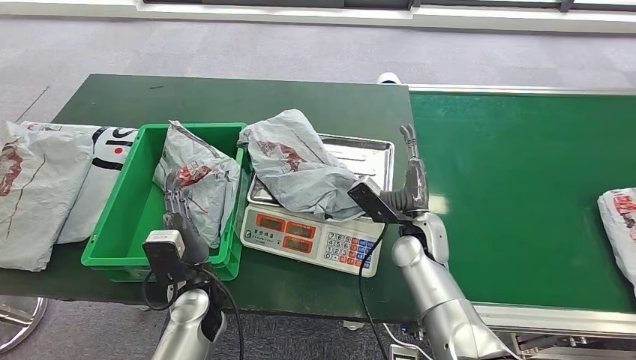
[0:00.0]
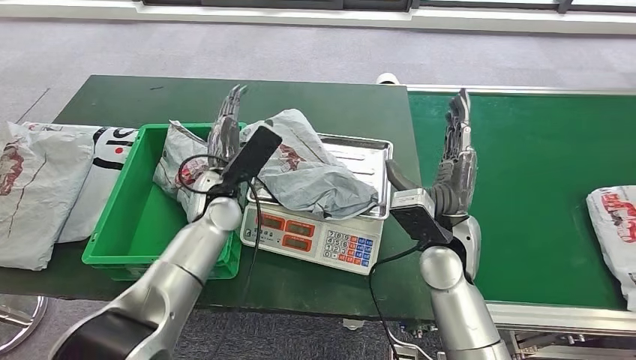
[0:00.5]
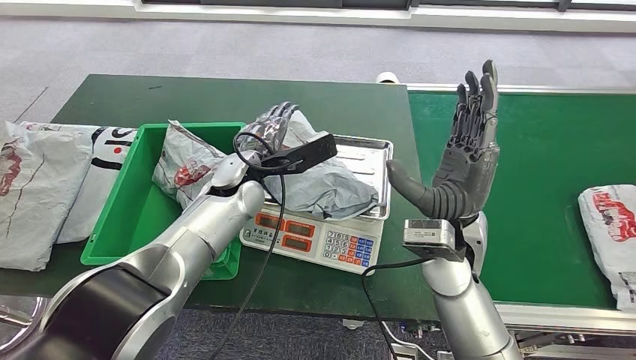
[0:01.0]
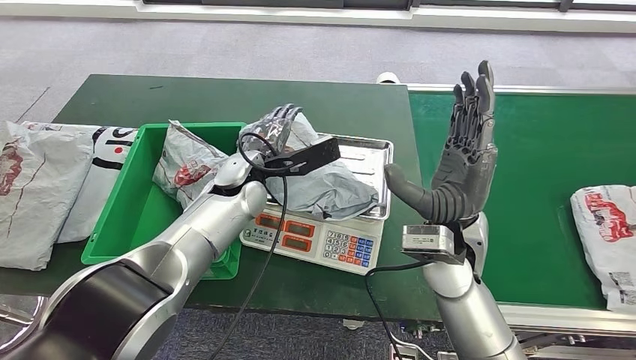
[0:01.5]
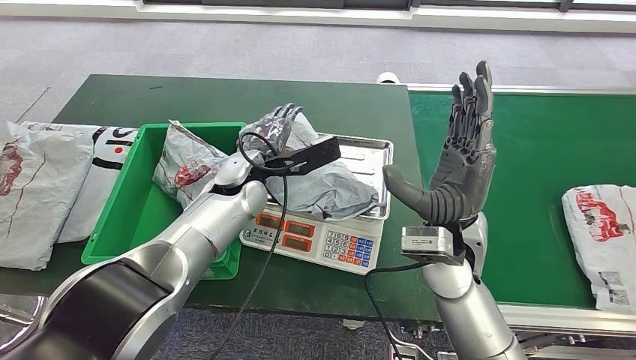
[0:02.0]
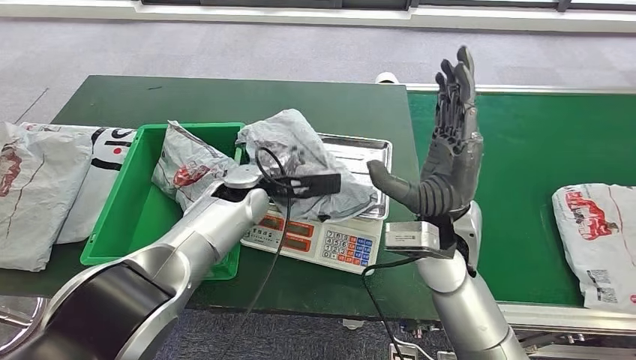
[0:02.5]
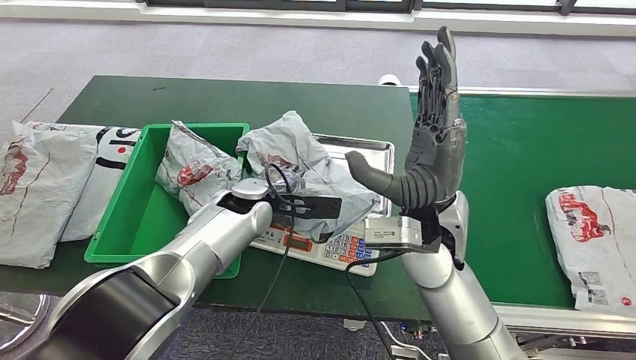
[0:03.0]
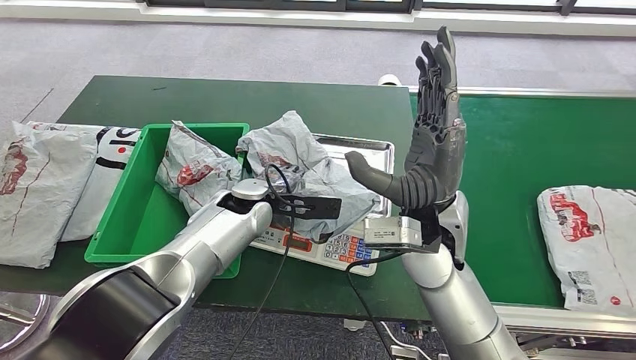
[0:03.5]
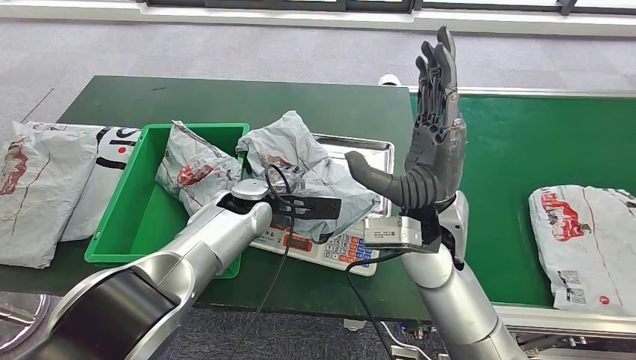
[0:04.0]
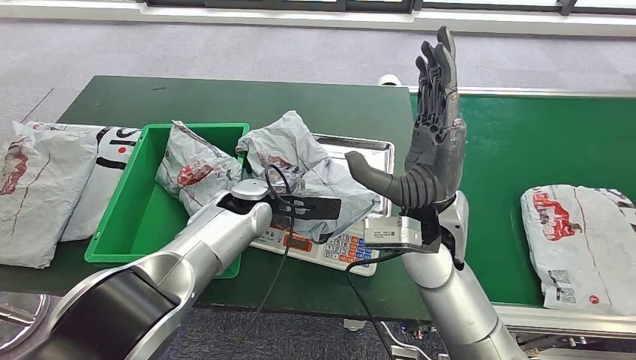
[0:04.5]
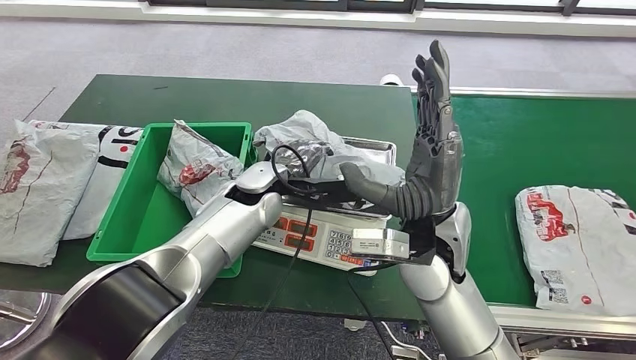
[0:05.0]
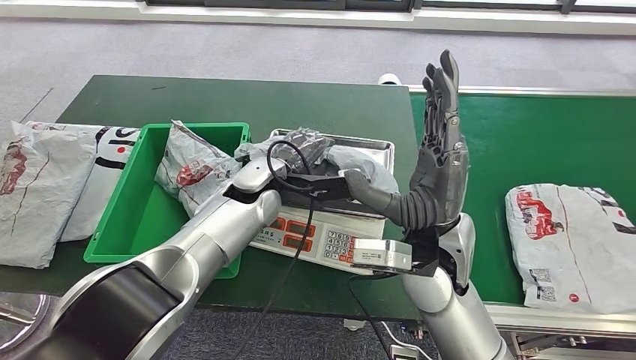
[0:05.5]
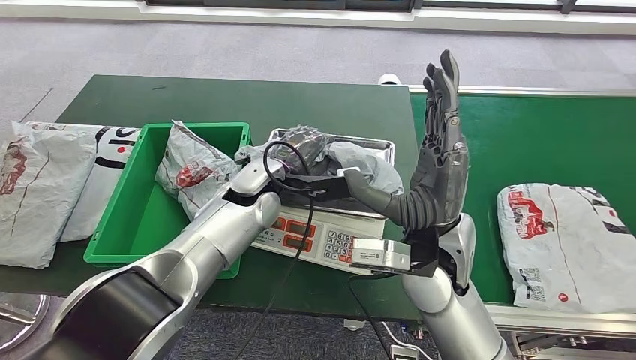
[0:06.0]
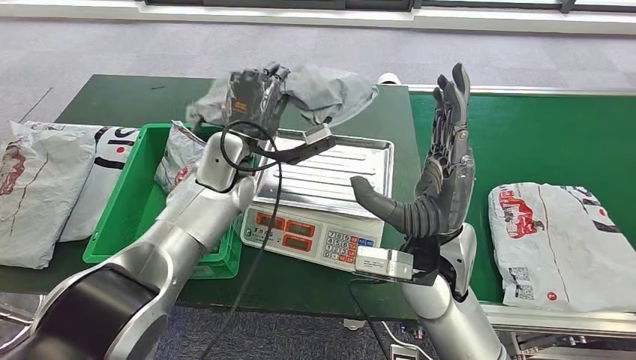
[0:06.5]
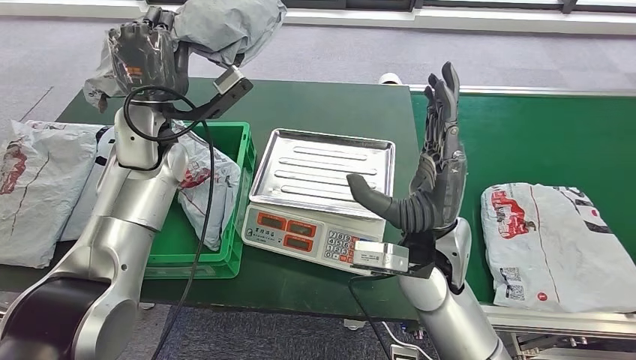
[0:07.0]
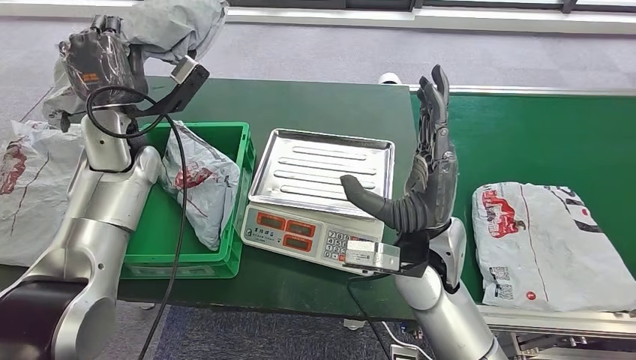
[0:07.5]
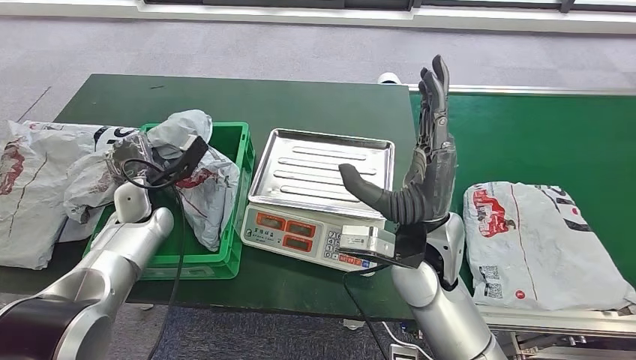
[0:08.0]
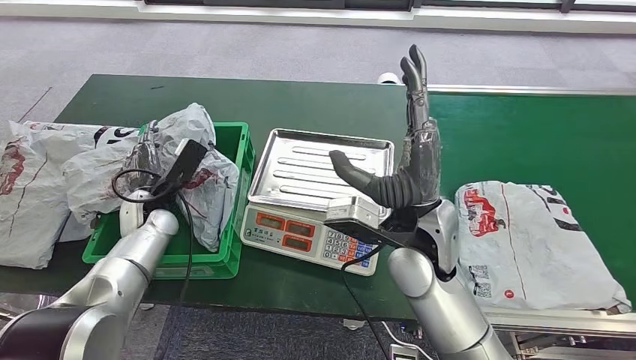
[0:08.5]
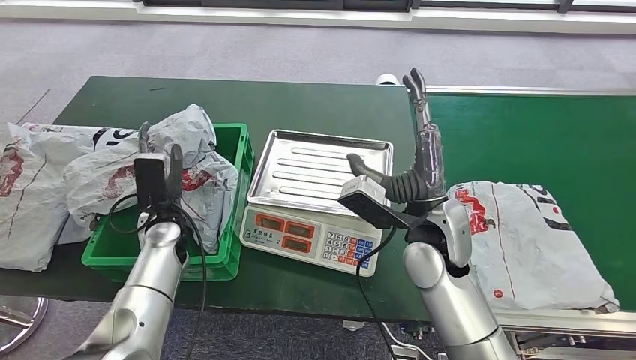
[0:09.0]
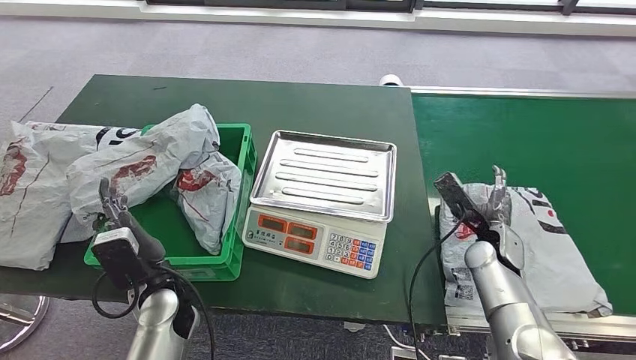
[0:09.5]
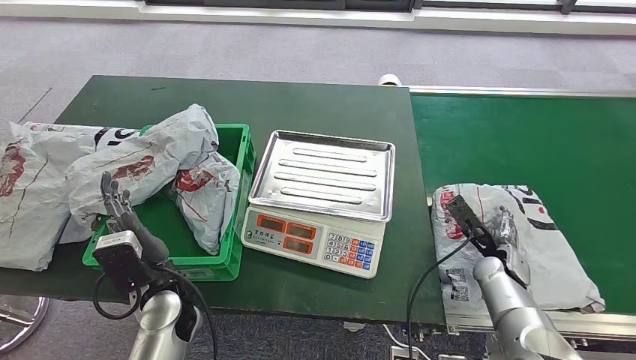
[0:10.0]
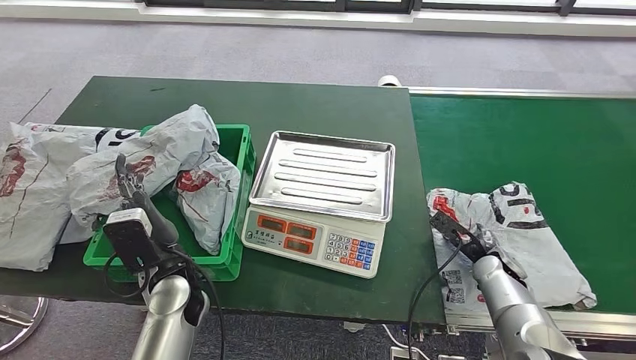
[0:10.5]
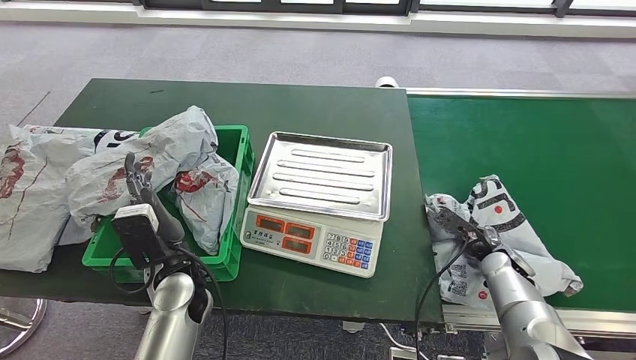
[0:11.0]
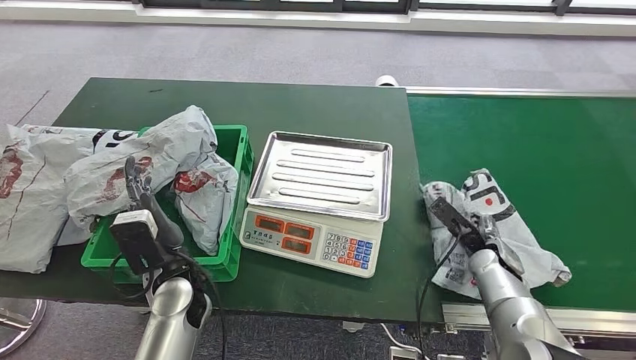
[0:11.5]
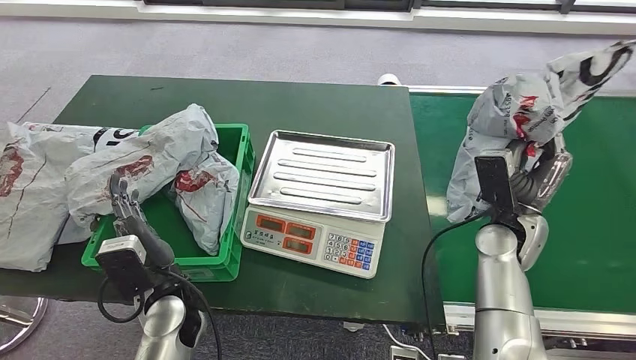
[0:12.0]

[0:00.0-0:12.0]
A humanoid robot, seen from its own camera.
Step, 0:00.5 to 0:06.0: Pick up the parcel from the inbound machine.
Step, 0:06.5 to 0:10.0: Place the parcel into the delivery box.
0:10.0 to 0:12.0: The right hand goes about 10 cm upward.

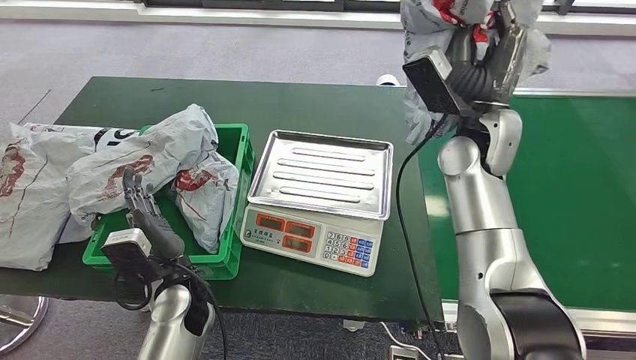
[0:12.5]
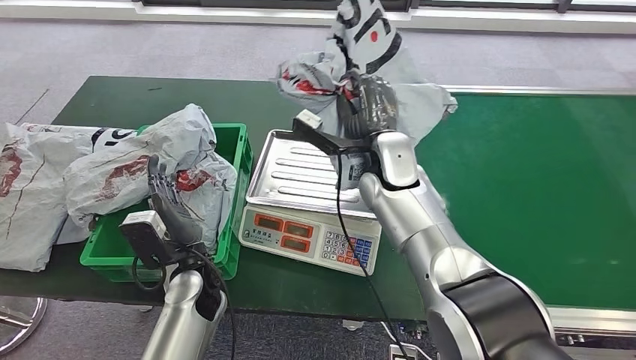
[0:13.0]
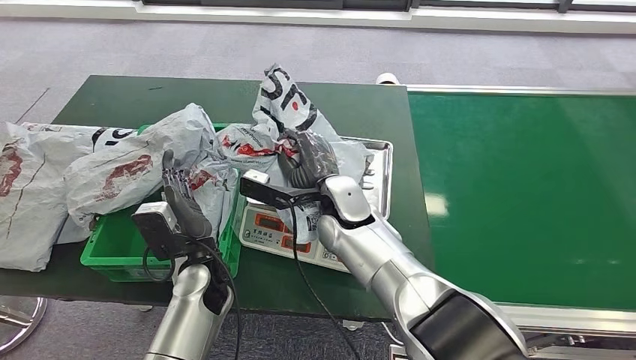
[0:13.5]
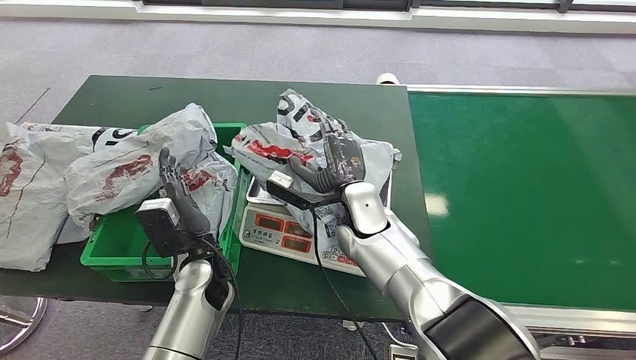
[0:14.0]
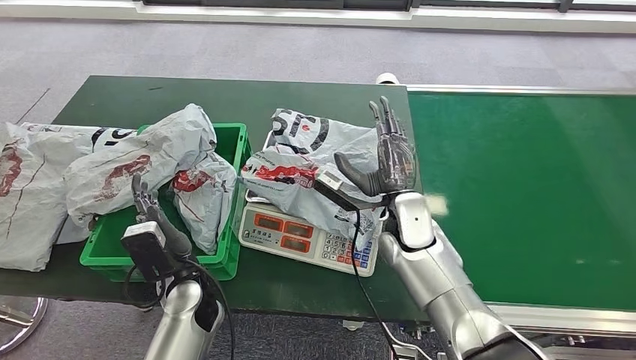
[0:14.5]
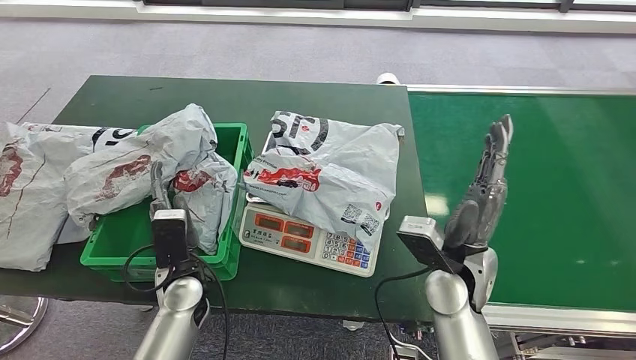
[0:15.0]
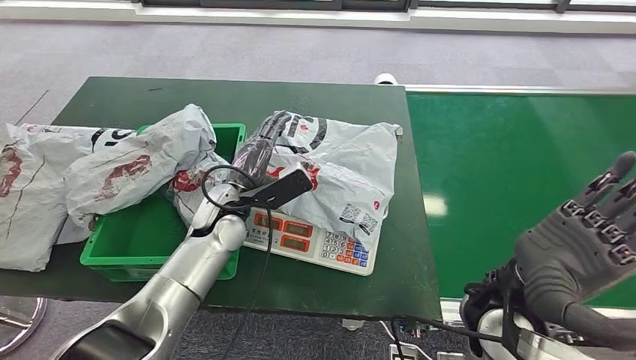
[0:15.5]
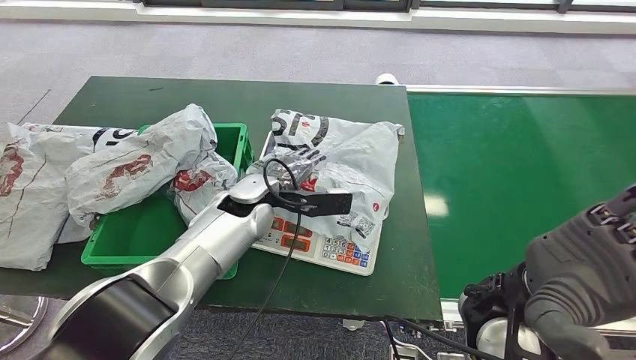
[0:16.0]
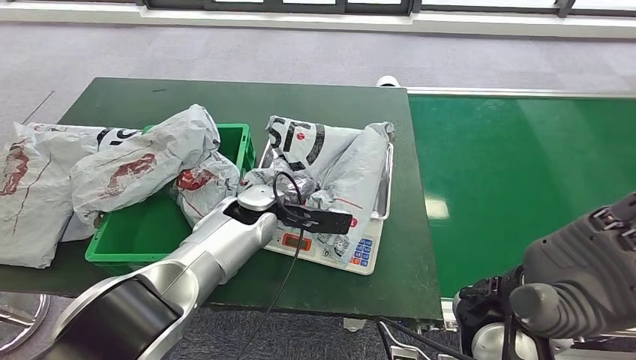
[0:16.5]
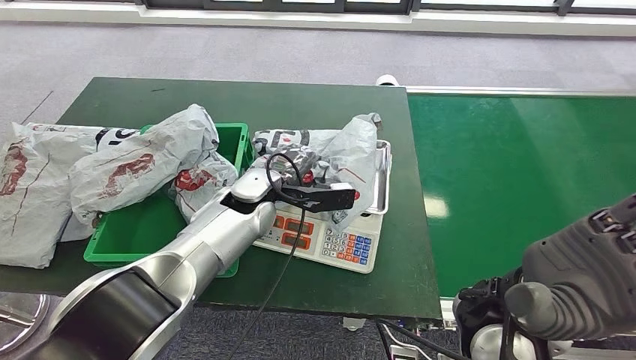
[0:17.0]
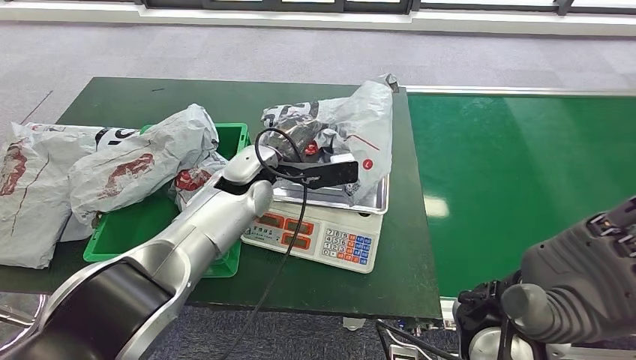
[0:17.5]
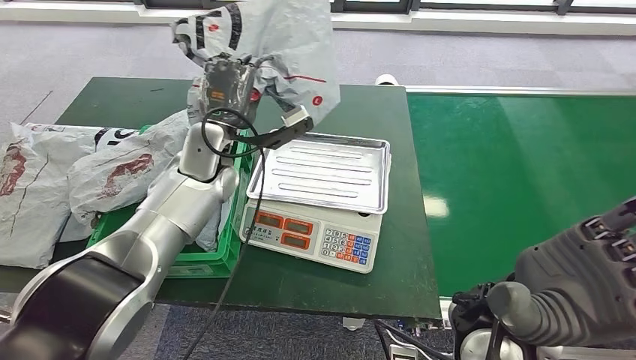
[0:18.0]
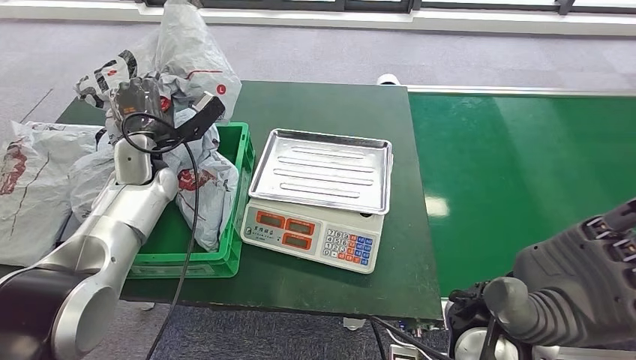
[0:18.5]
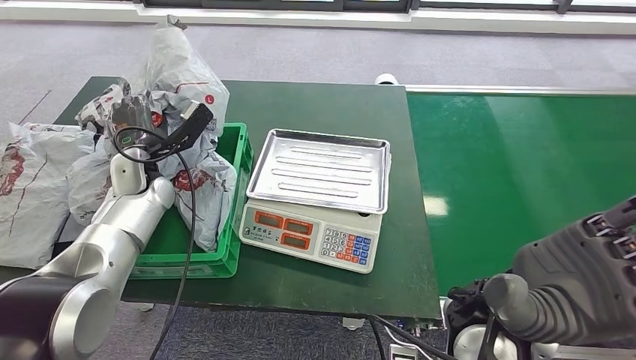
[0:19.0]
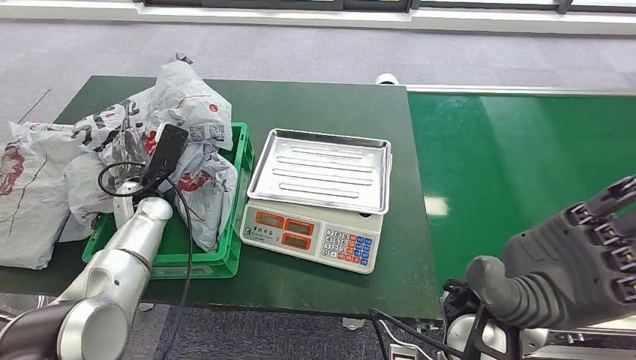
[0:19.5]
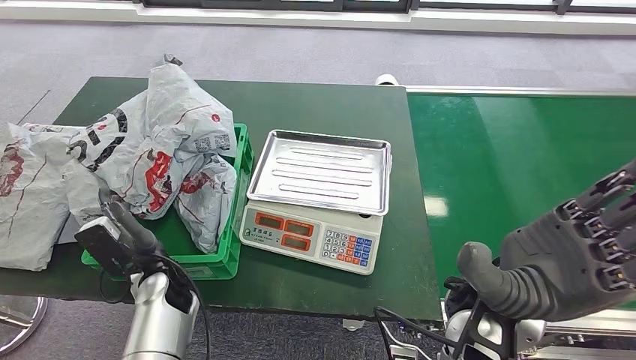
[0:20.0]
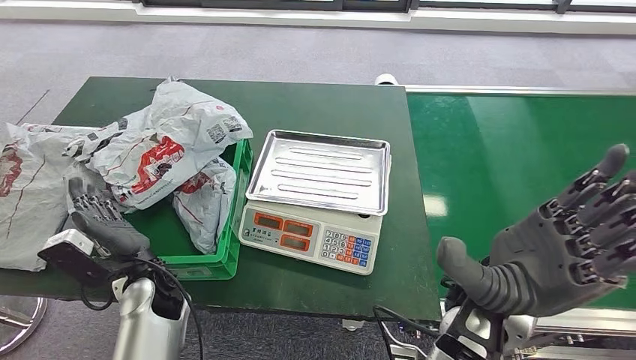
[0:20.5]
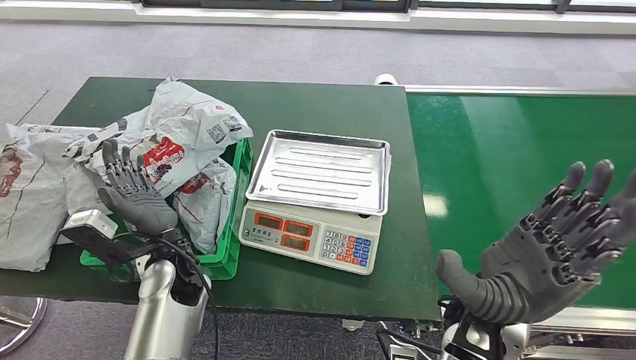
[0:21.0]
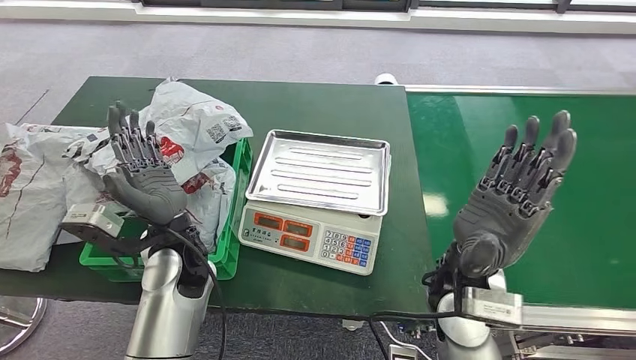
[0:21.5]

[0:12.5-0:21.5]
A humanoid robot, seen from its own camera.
Step, 0:13.0 to 0:14.5: Place the parcel onto the inbound machine.
Step, 0:15.0 to 0:17.5: Pick up the parcel from the inbound machine.
Step, 0:18.0 to 0:21.5: Place the parcel into the delivery box.
